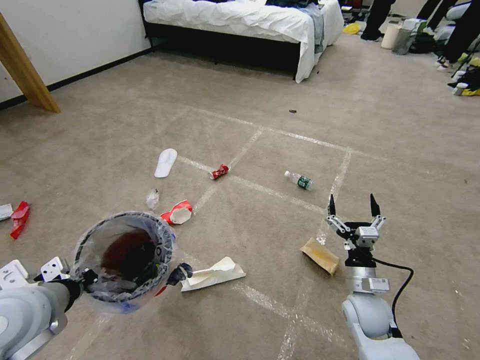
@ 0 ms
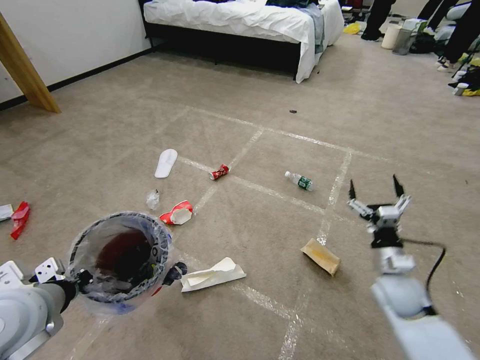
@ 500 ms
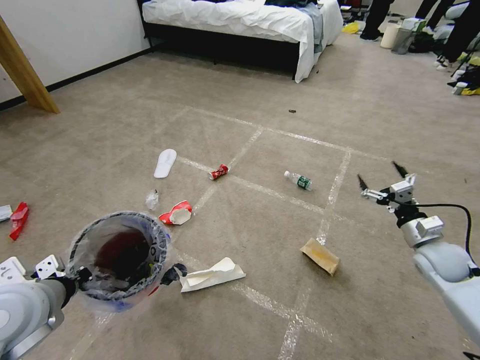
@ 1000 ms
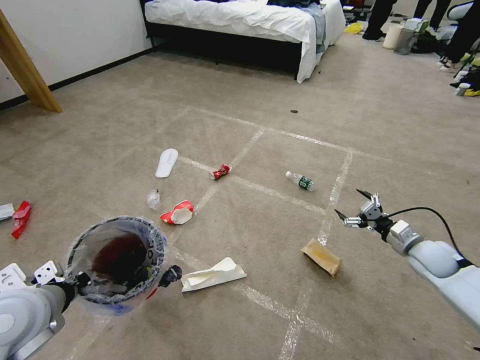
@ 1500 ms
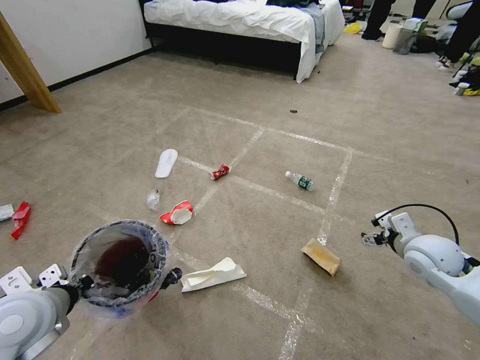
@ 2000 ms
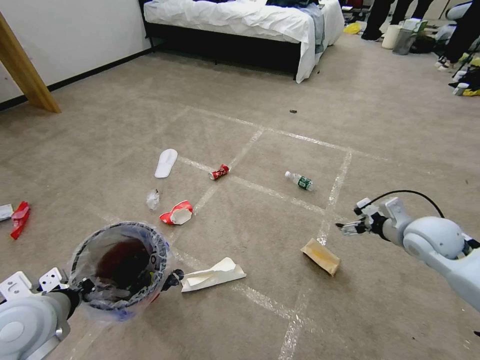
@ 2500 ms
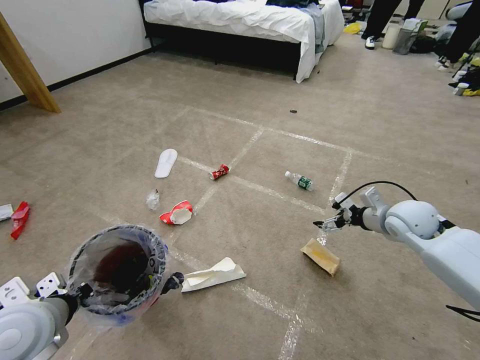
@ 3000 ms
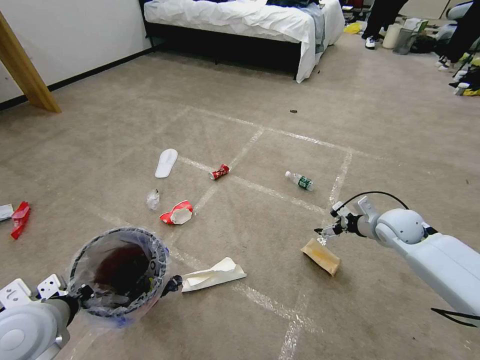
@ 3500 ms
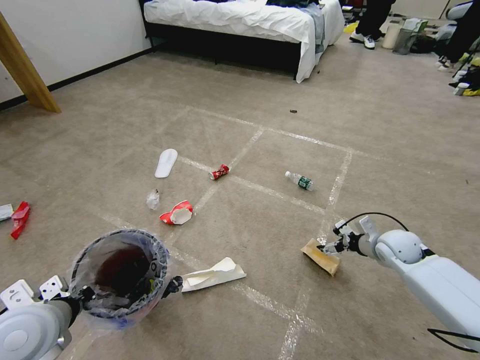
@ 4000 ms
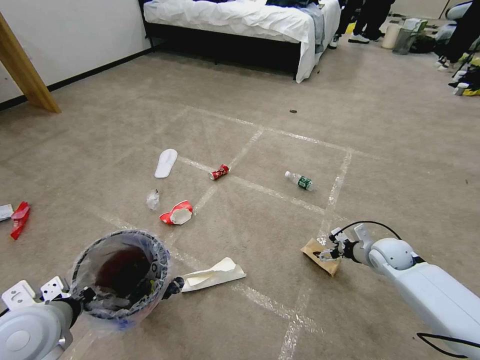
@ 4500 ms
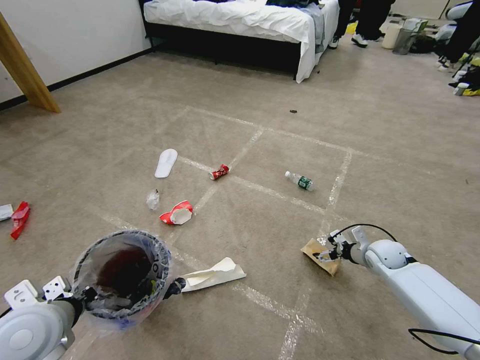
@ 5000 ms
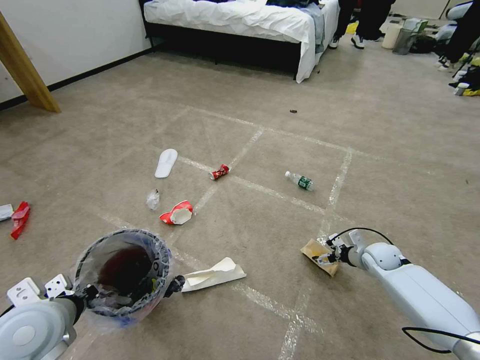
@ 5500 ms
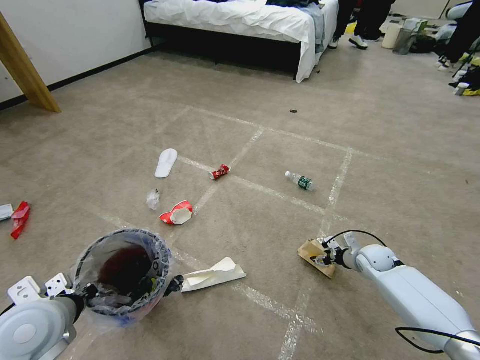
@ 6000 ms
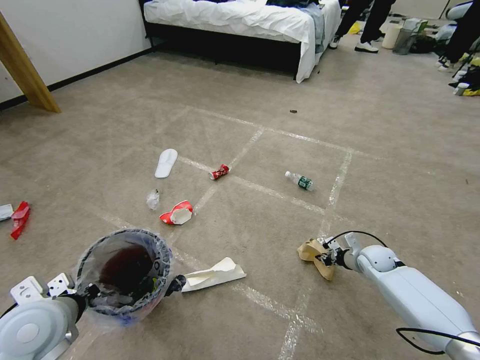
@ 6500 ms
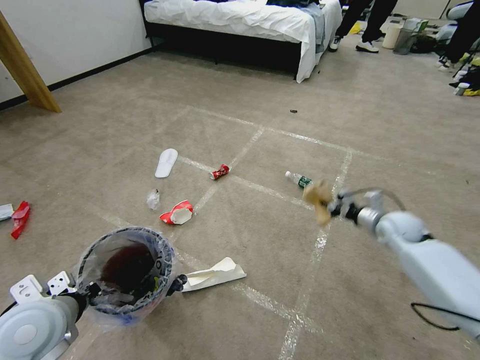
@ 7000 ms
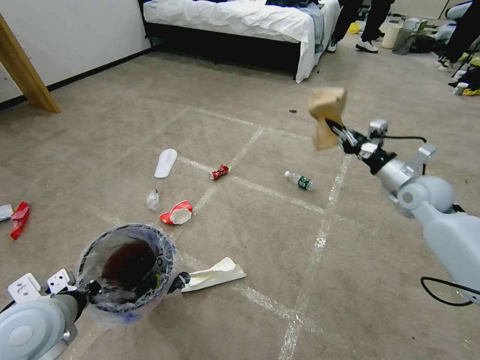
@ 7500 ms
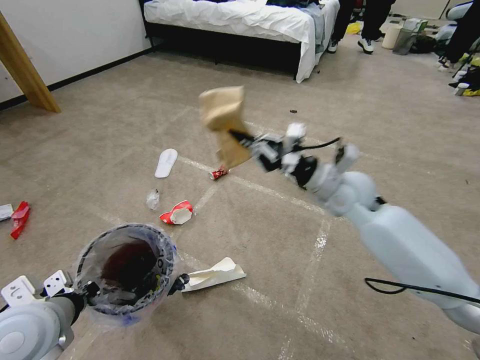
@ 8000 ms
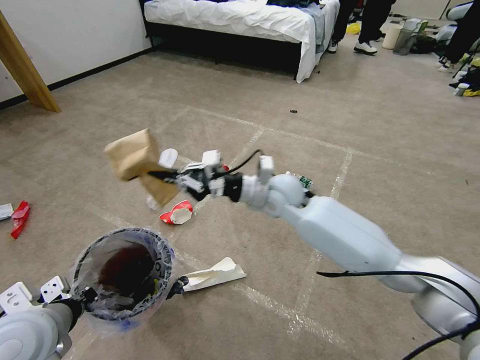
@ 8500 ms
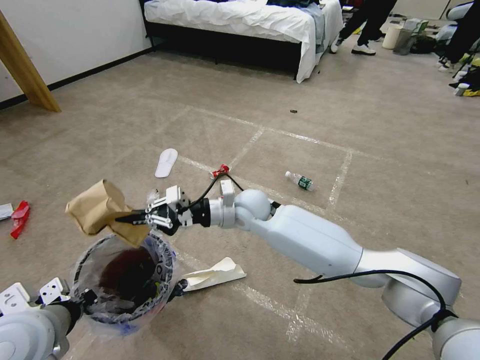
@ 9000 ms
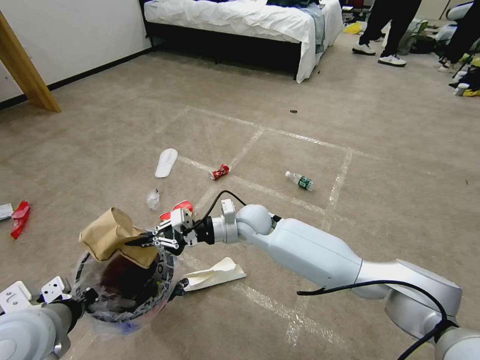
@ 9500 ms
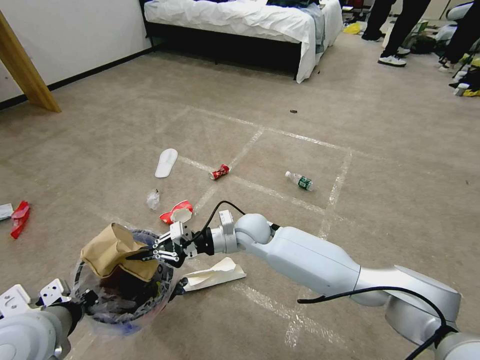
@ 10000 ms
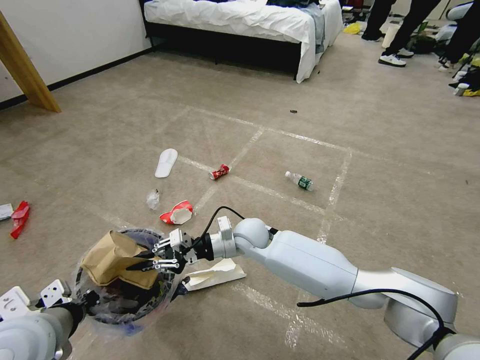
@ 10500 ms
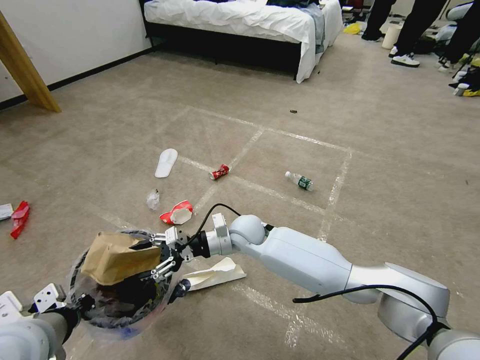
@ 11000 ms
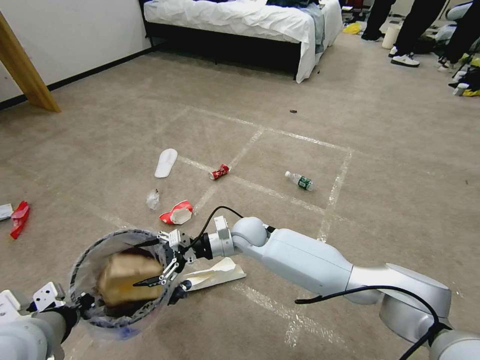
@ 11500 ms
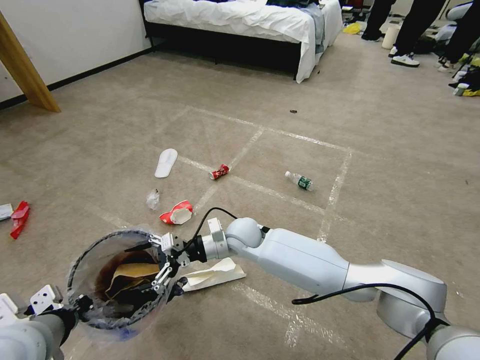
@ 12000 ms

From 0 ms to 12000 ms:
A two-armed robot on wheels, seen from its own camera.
Task of the whole recording: Pick up the trash bin and place the garbage on the floor into it.
From 0 ms to 2000 ms: The right gripper heads upward, to the right and forward, covering about 20 cm.
From 2000 ms to 4000 ms: The right gripper goes about 10 cm downward and forward.
From 4000 ms to 6000 ms: The right gripper heads downward, covering about 10 cm, and closes up.
From 6000 ms to 8000 ms: The right gripper heads upward and to the left, covering roughly 30 cm, and closes.
From 8000 ms to 10000 ms: The right gripper shifts roughly 25 cm to the left and downward.
From 10000 ms to 12000 ms: The right gripper opens.

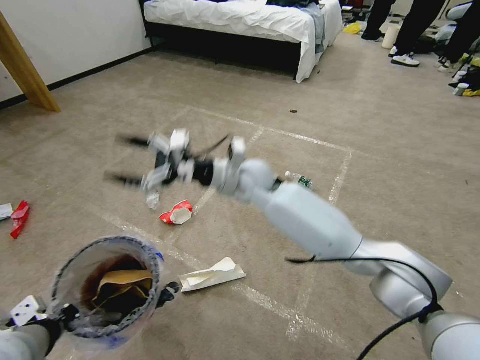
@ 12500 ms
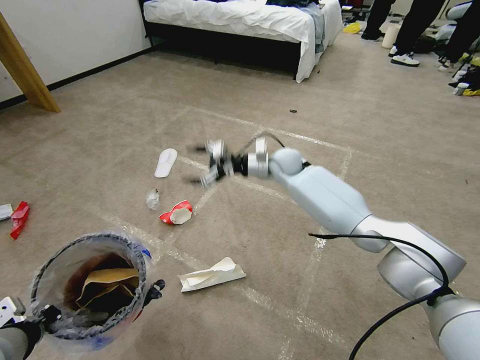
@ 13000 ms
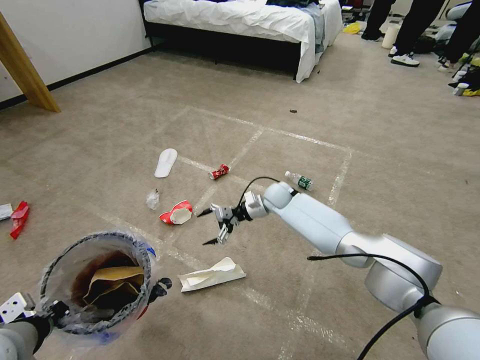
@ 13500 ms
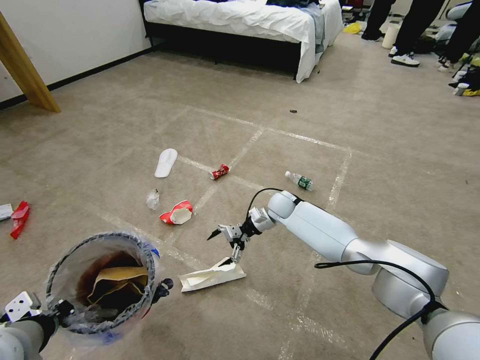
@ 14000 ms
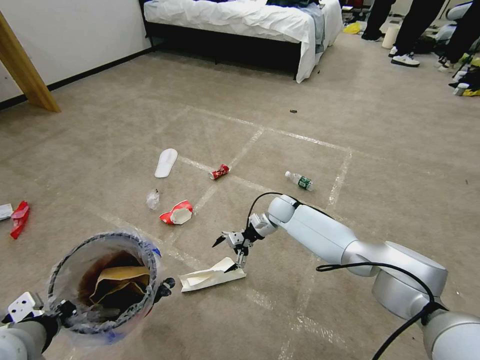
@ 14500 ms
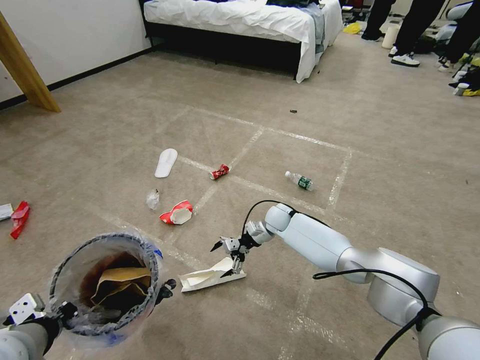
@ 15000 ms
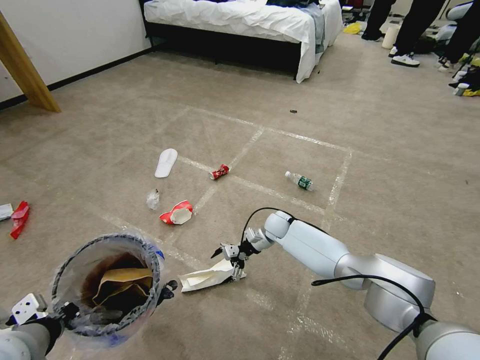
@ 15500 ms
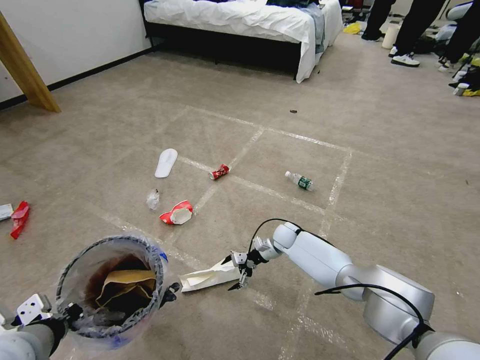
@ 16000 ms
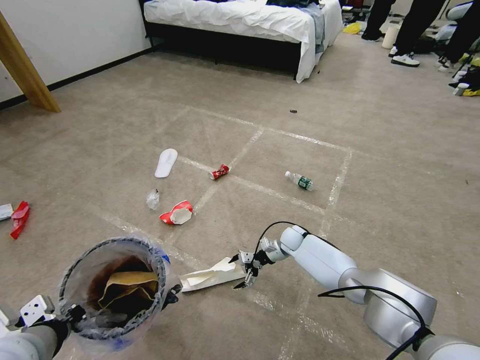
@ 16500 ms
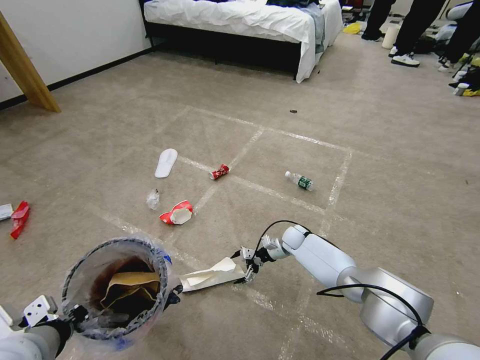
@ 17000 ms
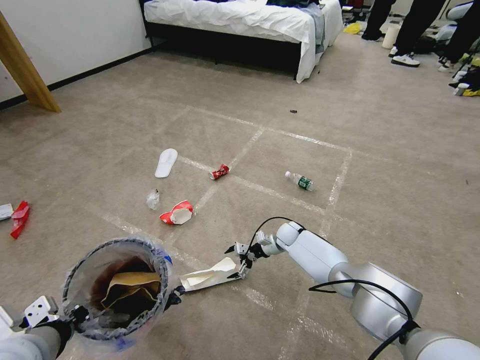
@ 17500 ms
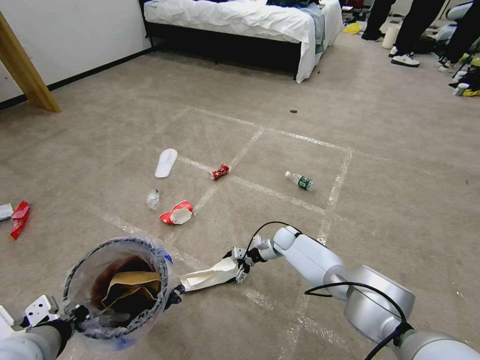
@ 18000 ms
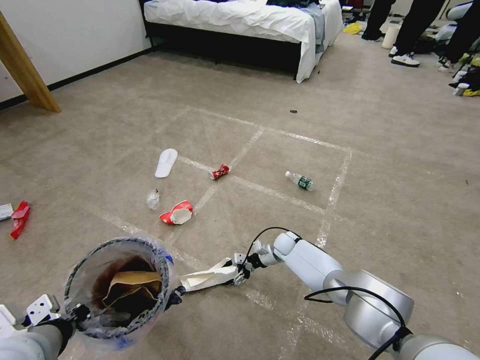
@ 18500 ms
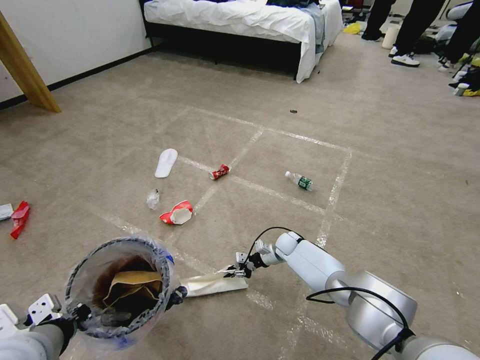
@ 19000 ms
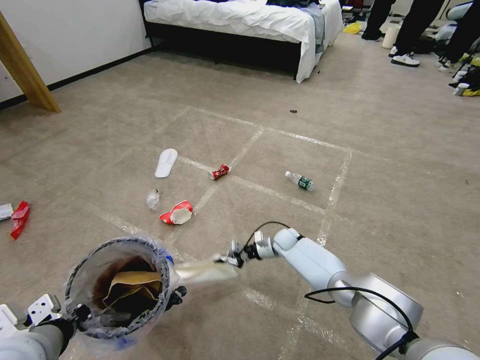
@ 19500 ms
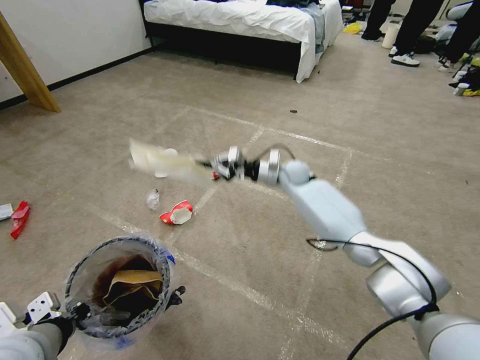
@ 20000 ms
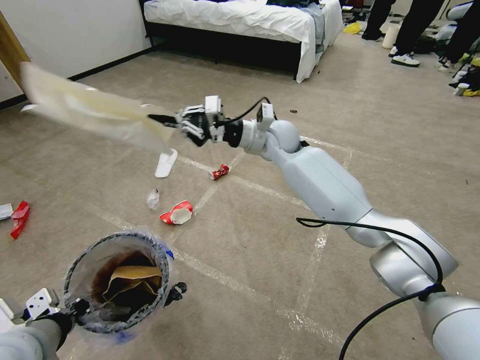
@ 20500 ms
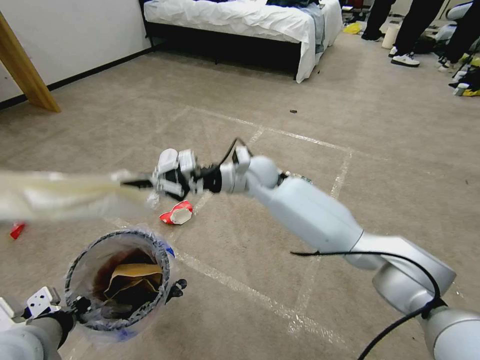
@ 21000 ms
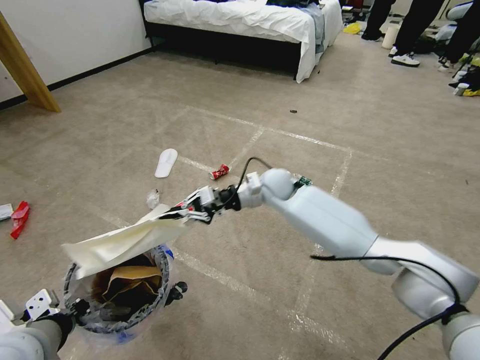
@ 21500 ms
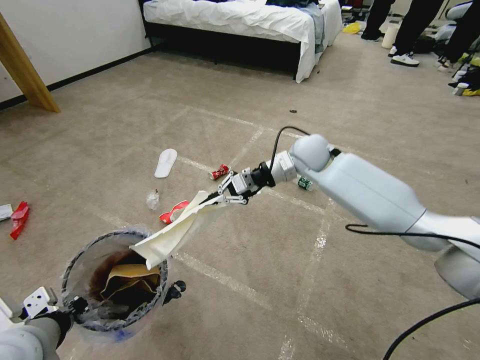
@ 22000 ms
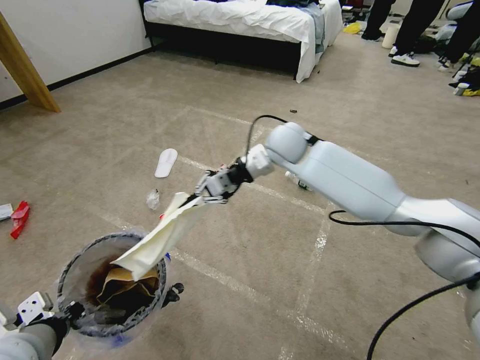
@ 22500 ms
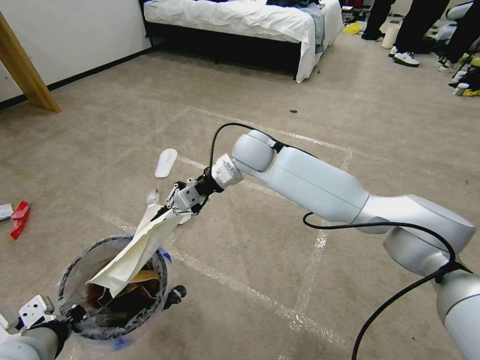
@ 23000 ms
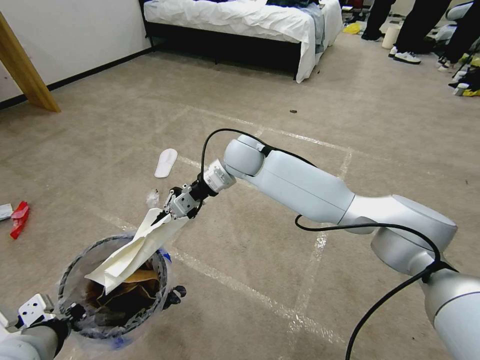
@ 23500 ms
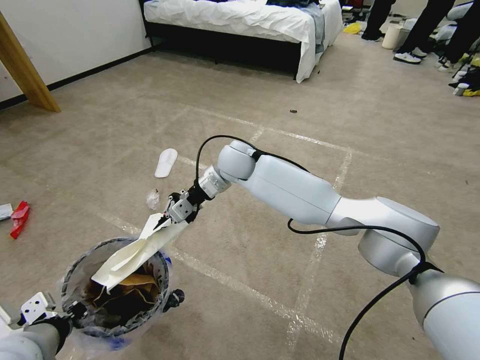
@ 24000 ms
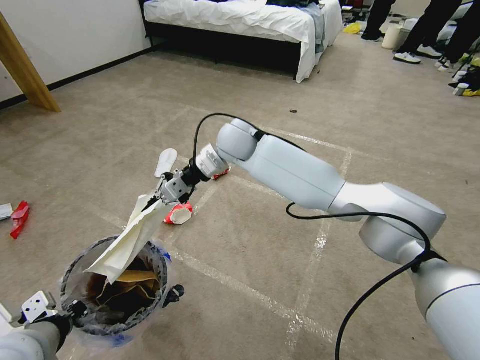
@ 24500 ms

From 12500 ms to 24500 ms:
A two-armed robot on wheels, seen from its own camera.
Task of the whole recording: Pick up the trash bin and place the garbage on the floor into it.
From 12500 ms to 14500 ms: The right gripper moves downward, to the right and forward, approximately 25 cm.
From 14500 ms to 16500 ms: The right gripper moves downward and to the right, about 10 cm.
From 16500 ms to 18500 ms: The grippers make only small movements.
From 18500 ms to 20500 ms: The right gripper shifts approximately 40 cm upward, and closes.
From 20500 ms to 22500 ms: The right gripper goes left and right, roughly 10 cm each way, reversing 2 times.
From 22500 ms to 24500 ms: The right gripper moves to the left, approximately 10 cm.

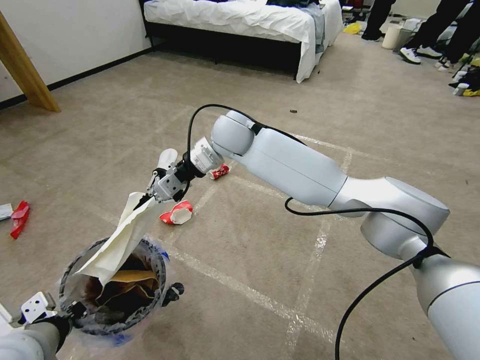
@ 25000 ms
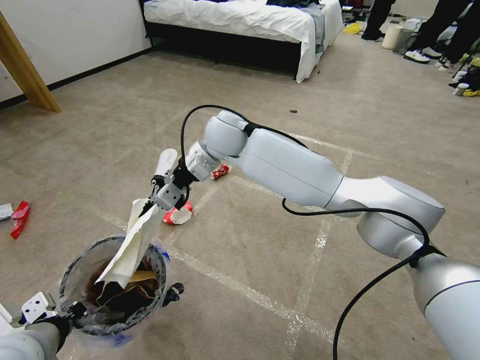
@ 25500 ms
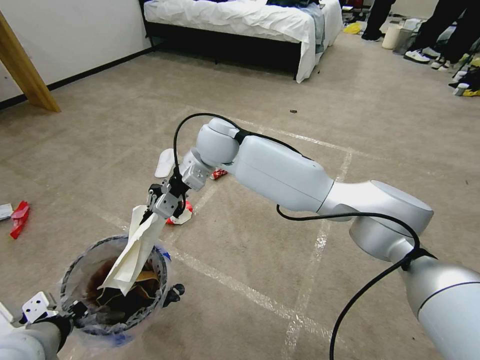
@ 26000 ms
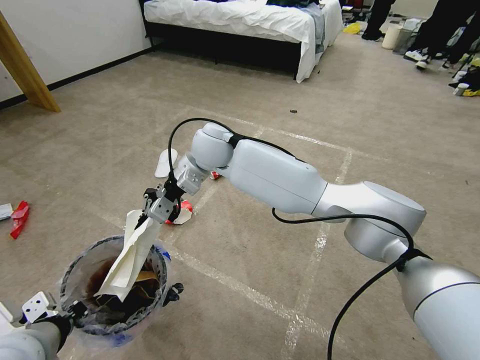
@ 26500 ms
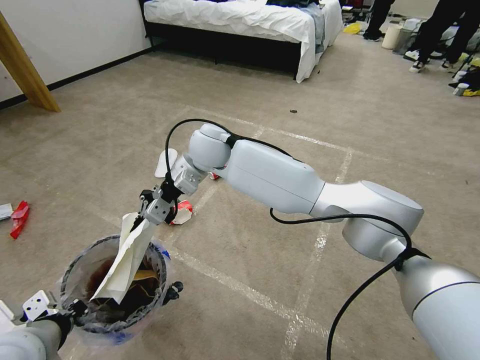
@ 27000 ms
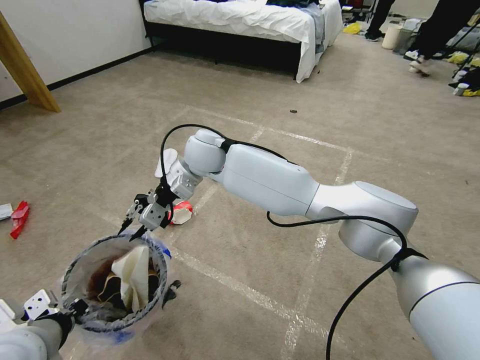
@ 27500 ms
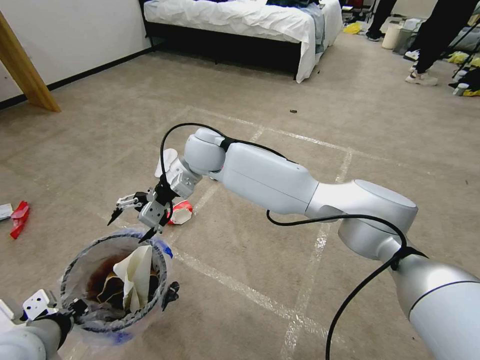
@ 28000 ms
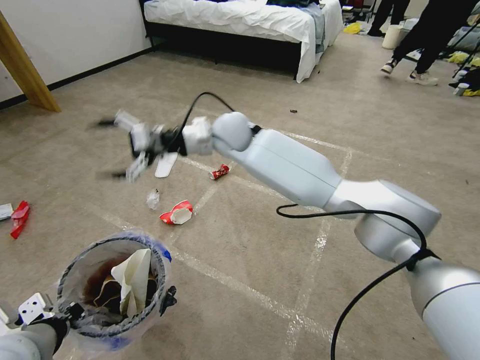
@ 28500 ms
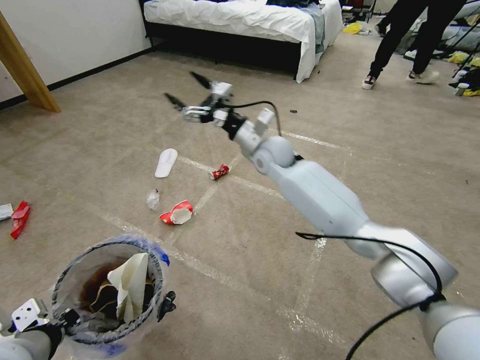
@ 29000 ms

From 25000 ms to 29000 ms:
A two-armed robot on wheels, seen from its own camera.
Task of the whole recording: Pick up the trash bin and place the garbage on the floor into it.
From 25000 ms to 27000 ms: The right gripper travels to the left by about 5 cm.
From 27000 ms to 29000 ms: The right gripper goes about 15 cm to the right, and opens up.
